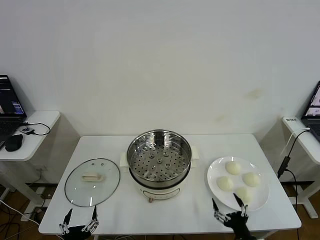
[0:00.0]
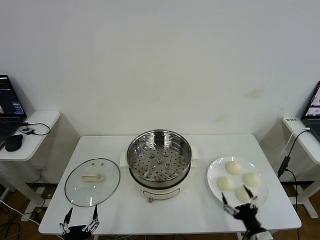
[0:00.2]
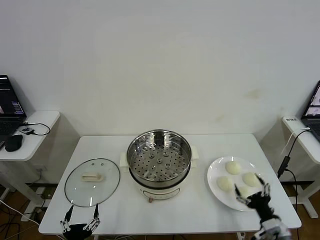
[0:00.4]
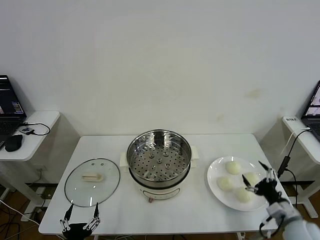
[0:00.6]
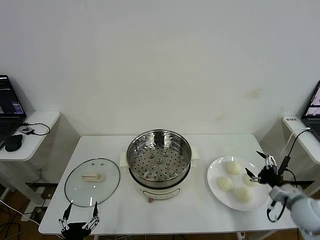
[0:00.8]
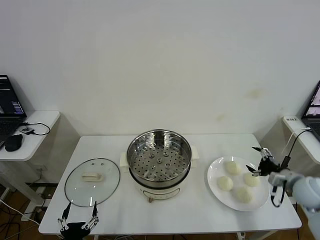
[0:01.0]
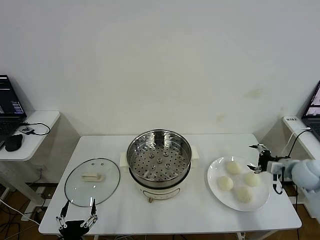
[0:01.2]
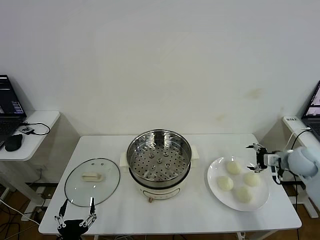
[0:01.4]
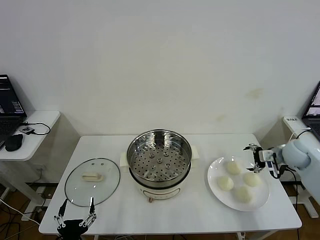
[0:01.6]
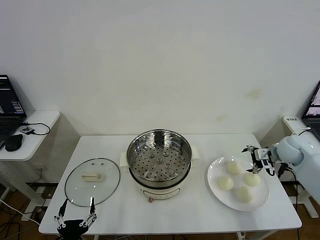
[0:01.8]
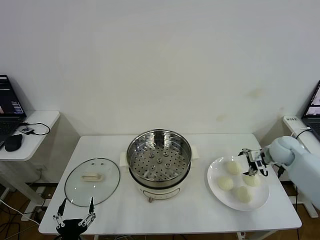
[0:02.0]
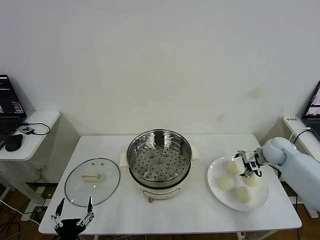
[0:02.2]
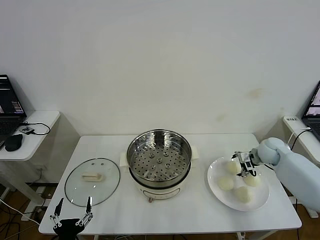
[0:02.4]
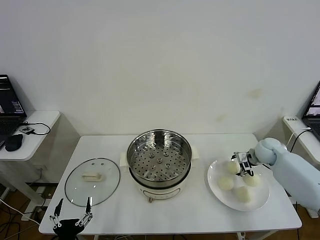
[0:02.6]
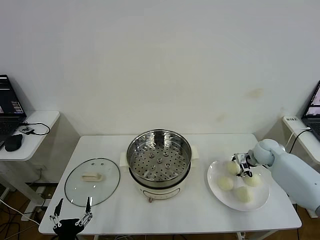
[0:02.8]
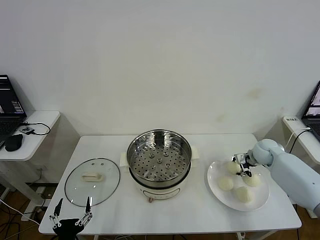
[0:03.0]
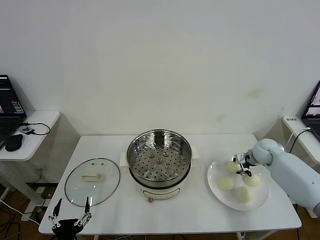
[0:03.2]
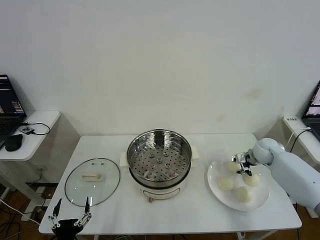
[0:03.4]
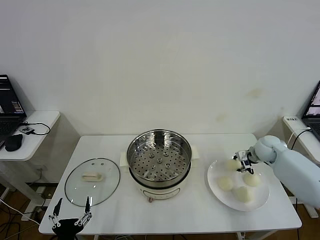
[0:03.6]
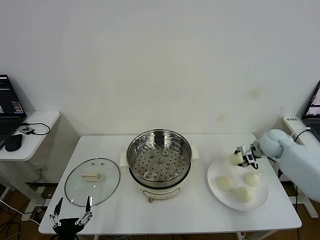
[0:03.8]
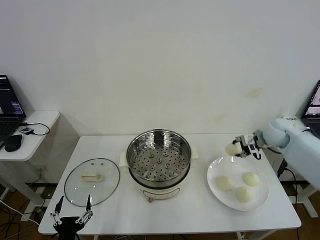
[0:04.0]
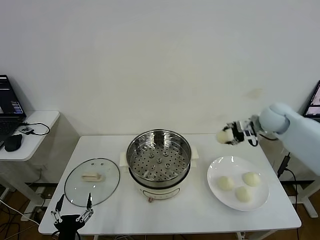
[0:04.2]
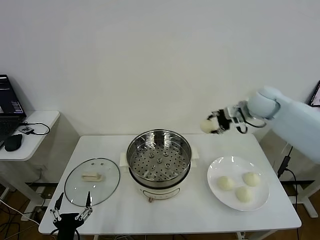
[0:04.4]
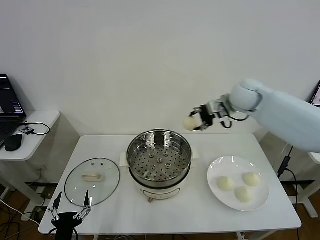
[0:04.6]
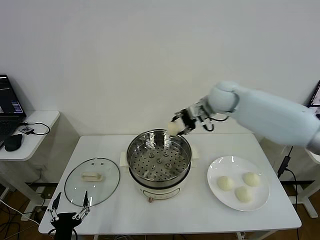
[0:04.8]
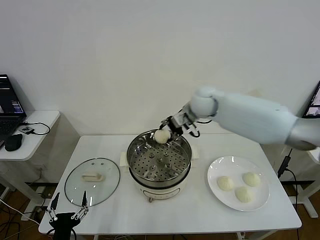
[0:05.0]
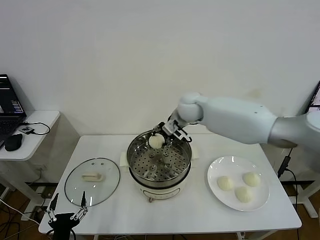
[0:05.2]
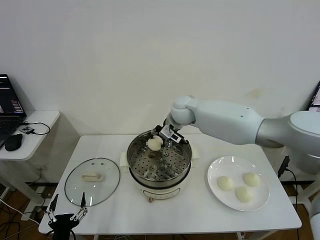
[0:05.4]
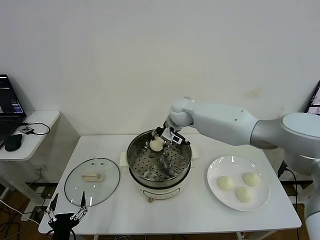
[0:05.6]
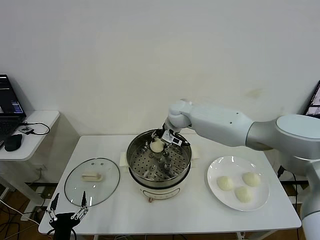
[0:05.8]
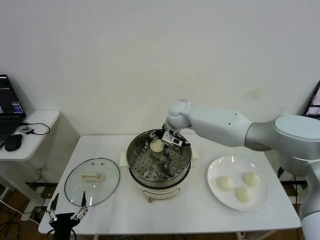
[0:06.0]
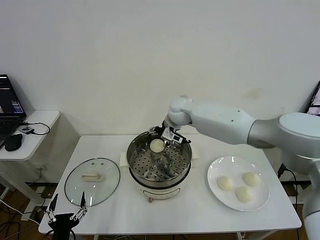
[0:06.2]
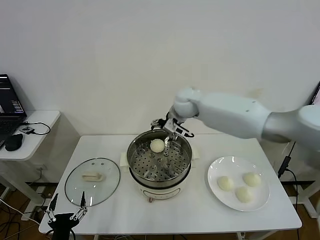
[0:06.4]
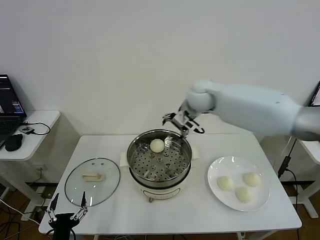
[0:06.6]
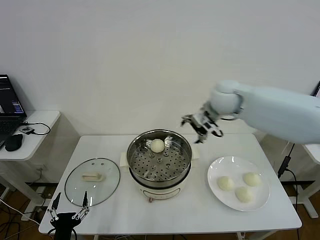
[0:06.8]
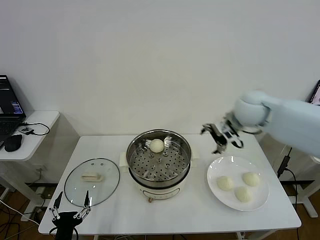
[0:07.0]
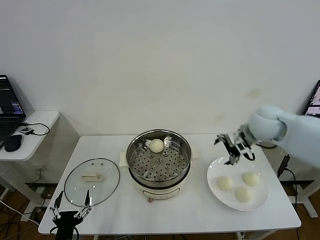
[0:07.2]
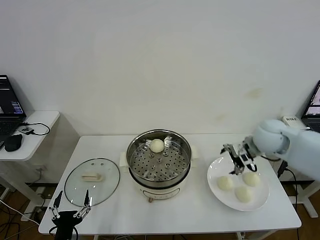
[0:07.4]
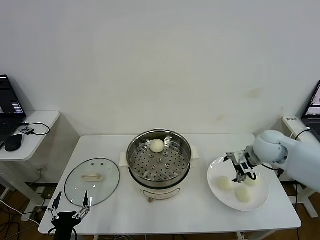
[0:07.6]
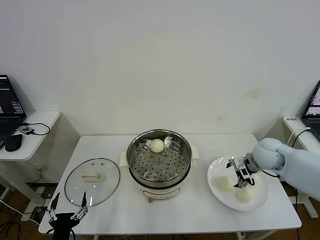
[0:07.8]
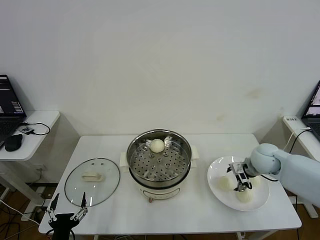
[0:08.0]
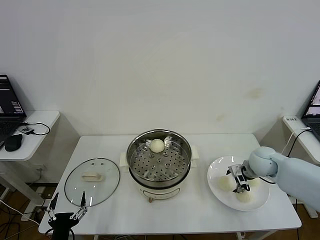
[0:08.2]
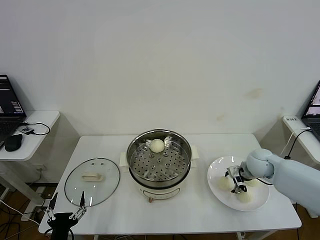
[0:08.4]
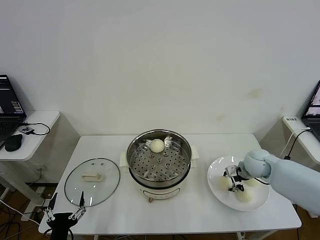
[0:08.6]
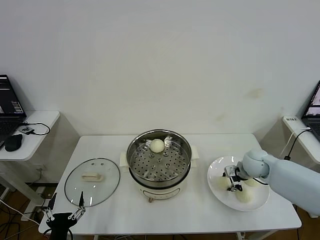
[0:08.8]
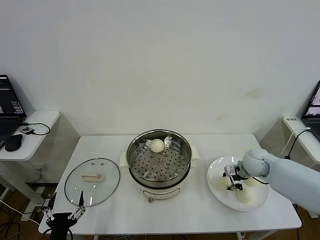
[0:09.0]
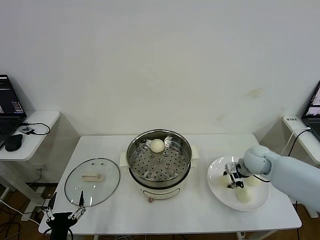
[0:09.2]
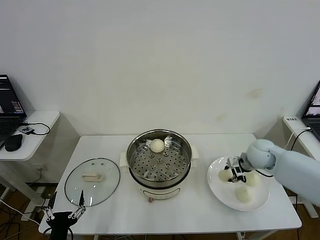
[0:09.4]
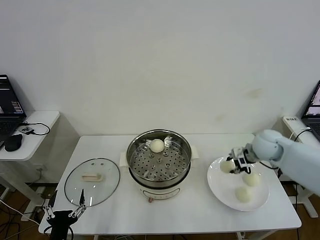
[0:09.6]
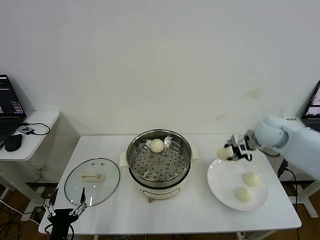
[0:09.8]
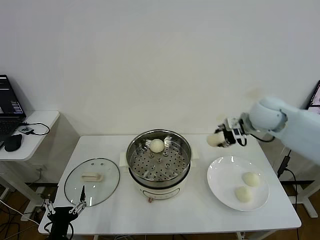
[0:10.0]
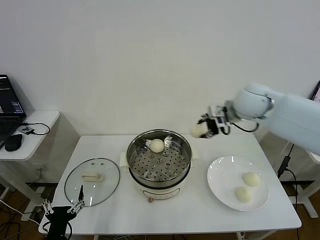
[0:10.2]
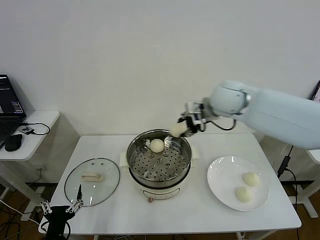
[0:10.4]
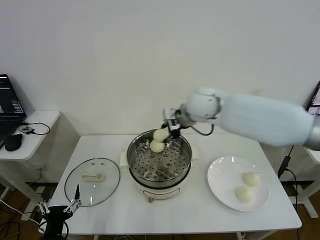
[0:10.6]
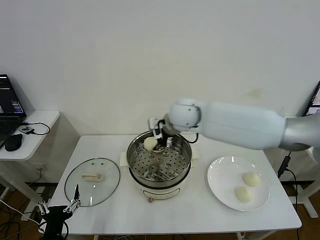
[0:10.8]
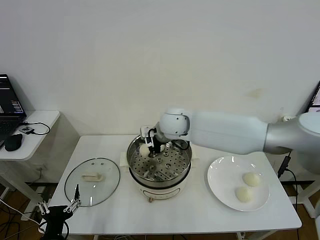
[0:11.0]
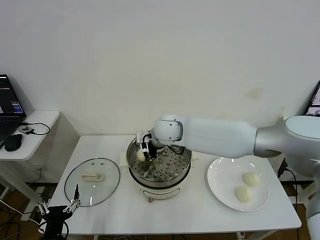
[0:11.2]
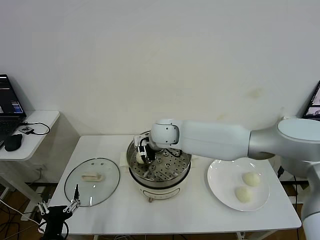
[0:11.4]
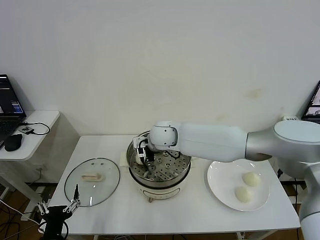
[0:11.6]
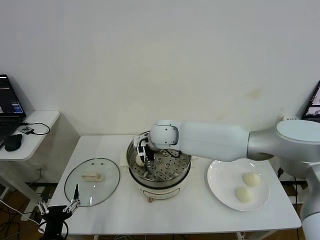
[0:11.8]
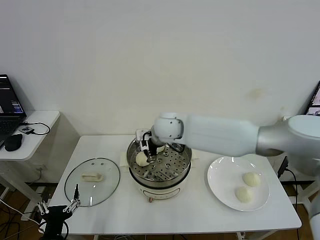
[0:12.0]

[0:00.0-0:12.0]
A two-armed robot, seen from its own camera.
Step, 0:00.0 to 0:03.2: Grasp the baozi in the plate with right gripper.
Step, 0:03.4 to 0:06.0: Place the baozi on the steamer with right gripper.
Step, 0:06.4 to 0:08.8: Grasp the baozi in the plate with right gripper.
Step, 0:09.0 to 0:11.8: Place the baozi on the steamer with right gripper.
0:01.6 to 0:03.0: The right gripper travels downward by approximately 5 cm, and closes its fingers.
0:03.0 to 0:04.4: The right gripper moves upward and to the left, roughly 25 cm.
0:04.4 to 0:06.0: The right gripper moves to the left and downward, roughly 25 cm, and opens.
0:06.0 to 0:07.6: The right gripper is displaced to the right and backward by some 30 cm.
0:07.6 to 0:09.0: The right gripper heads downward, covering roughly 10 cm, and closes up.
0:09.0 to 0:10.4: The right gripper is displaced upward and to the left by some 30 cm.
0:10.4 to 0:12.0: The right gripper goes some 15 cm to the left and downward, and opens.

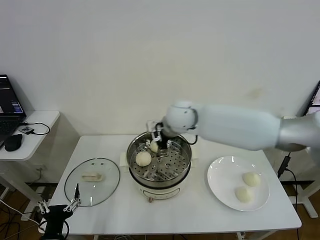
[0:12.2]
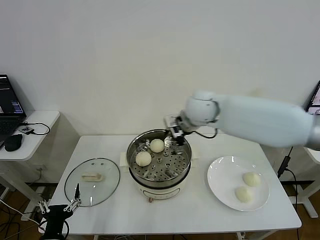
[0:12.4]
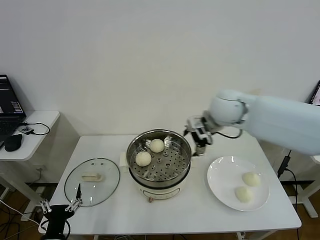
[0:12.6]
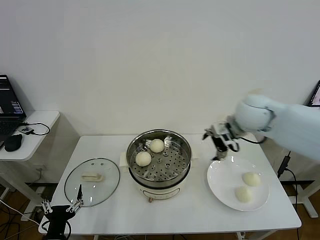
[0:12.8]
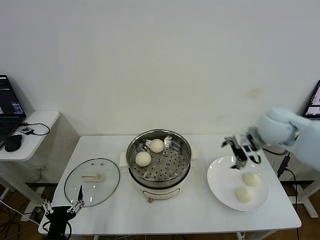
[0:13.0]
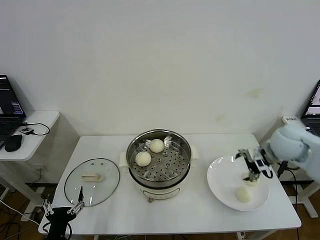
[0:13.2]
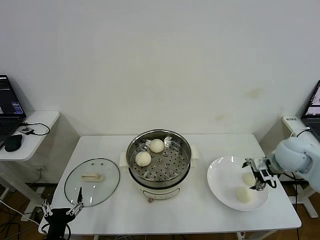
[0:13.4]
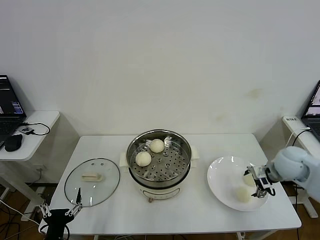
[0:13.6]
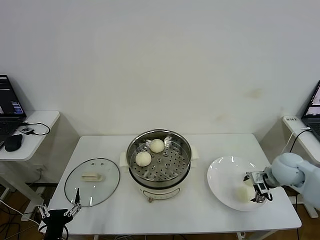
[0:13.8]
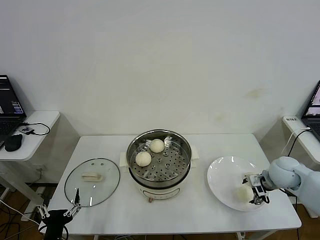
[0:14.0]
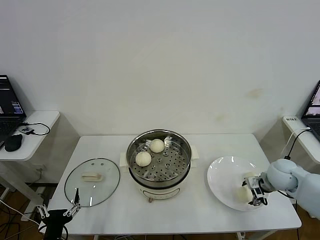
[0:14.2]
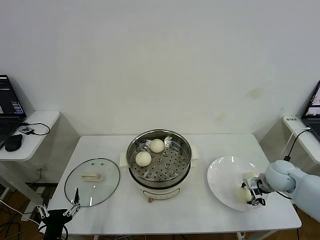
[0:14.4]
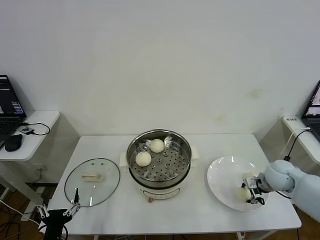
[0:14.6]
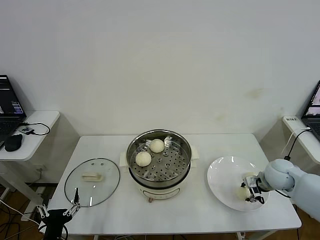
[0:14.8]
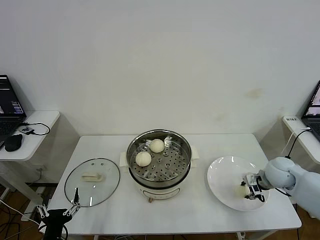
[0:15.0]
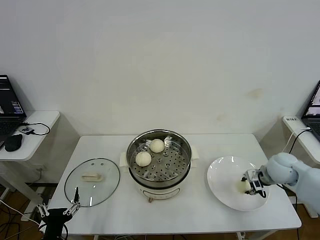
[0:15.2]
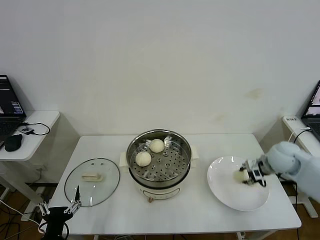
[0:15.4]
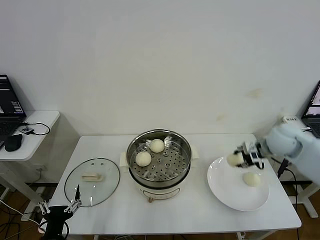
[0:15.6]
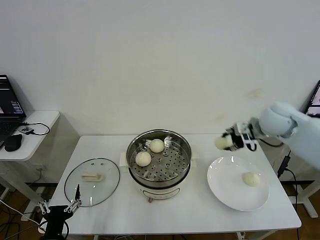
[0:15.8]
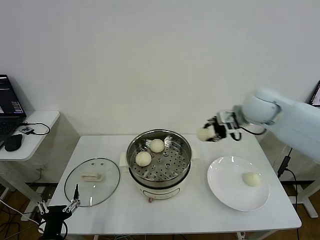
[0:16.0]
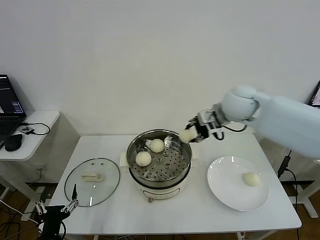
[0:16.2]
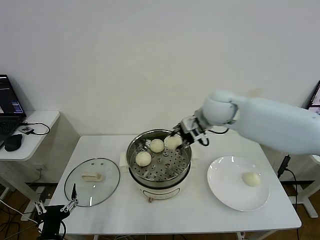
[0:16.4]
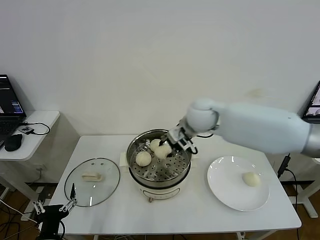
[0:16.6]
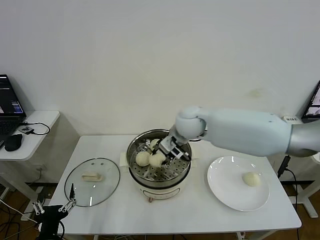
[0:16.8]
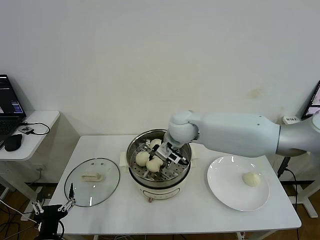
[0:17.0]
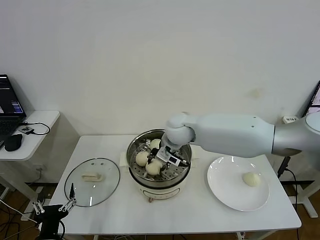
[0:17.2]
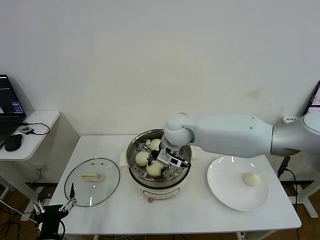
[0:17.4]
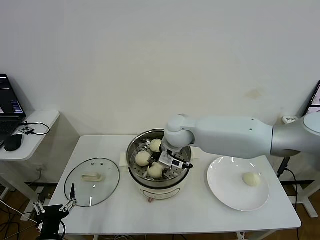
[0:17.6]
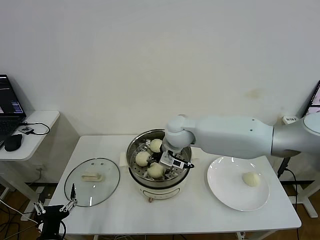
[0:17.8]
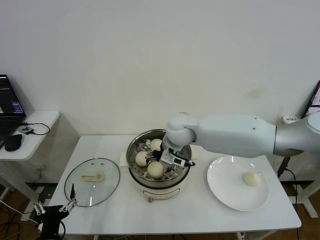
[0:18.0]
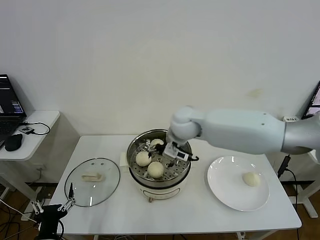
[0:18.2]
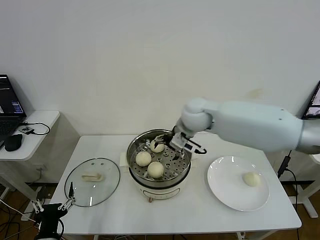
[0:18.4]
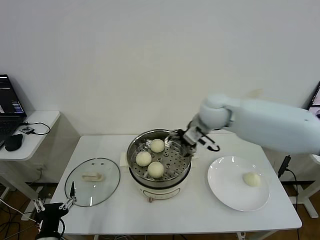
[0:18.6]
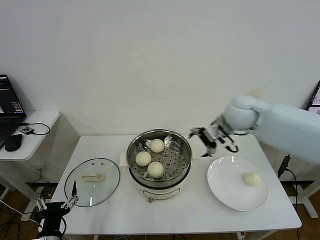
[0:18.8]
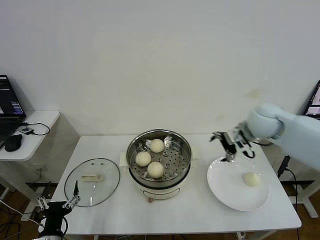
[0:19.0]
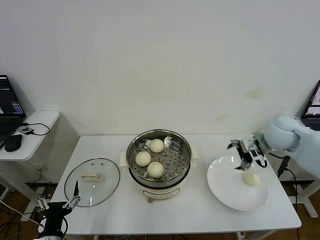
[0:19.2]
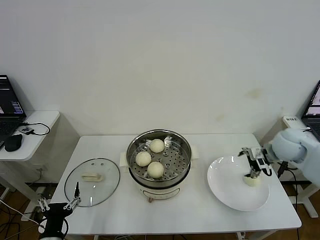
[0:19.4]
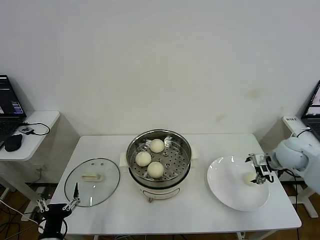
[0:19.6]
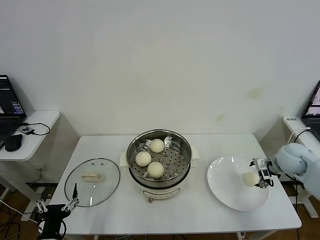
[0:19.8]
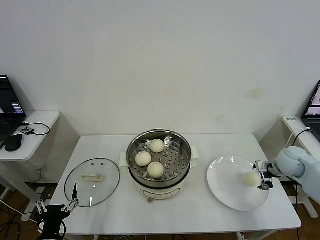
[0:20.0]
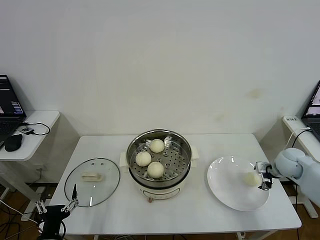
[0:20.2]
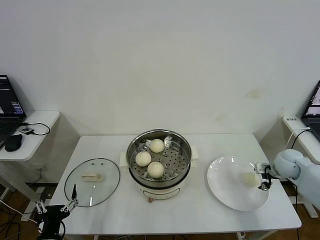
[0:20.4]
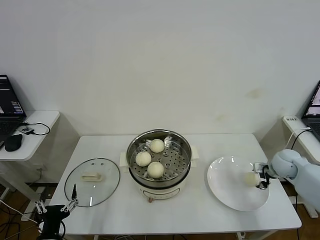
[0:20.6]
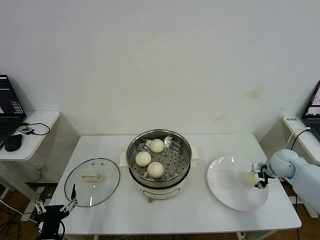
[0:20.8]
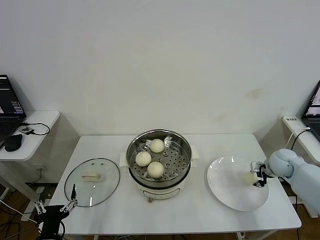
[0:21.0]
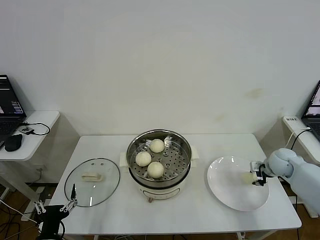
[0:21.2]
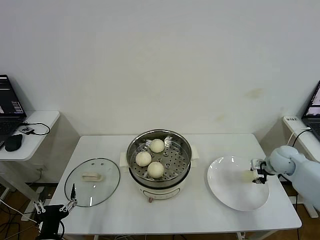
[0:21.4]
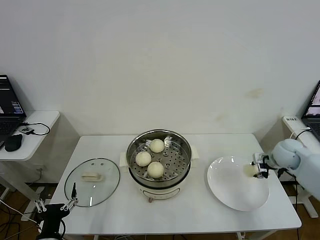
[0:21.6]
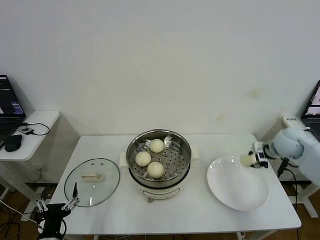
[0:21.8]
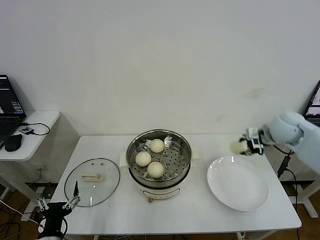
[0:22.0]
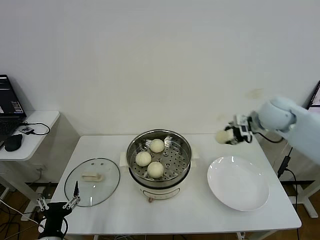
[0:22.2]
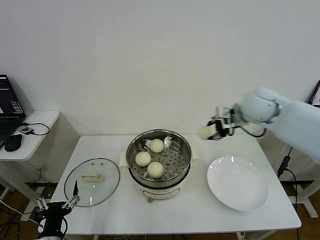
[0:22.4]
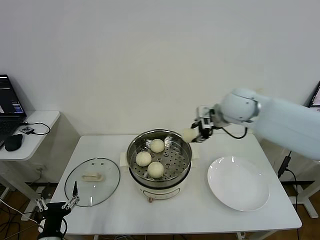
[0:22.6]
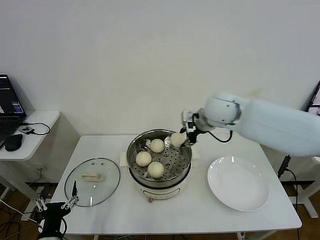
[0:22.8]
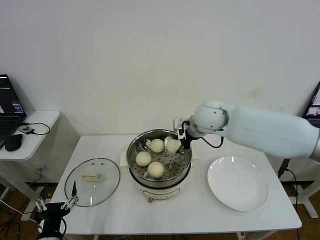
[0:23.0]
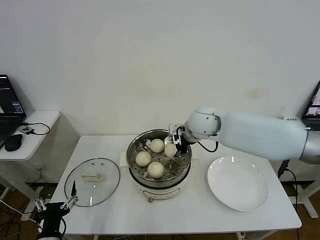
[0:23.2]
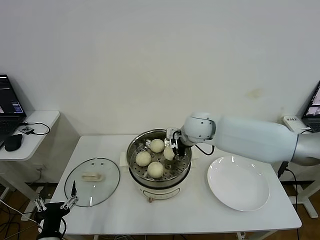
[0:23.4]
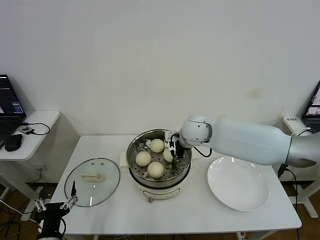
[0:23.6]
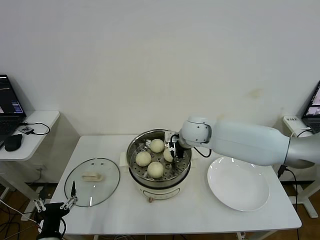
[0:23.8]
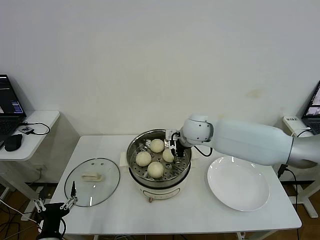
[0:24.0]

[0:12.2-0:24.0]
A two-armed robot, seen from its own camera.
Step, 0:12.2 to 0:14.8: Grasp the baozi in the plate with right gripper.
Step, 0:15.0 to 0:18.0: Place the baozi on the steamer with right gripper.
Step, 0:18.2 to 0:21.2: Grasp the baozi in the plate with right gripper.
0:12.2 to 0:13.6: The right gripper shifts about 35 cm to the right and downward.
0:13.6 to 0:15.2: The right gripper closes up.
0:15.2 to 0:16.6: The right gripper heads to the left and upward, covering about 30 cm.
0:16.6 to 0:18.2: The right gripper opens up.
0:18.2 to 0:19.6: The right gripper heads to the right, covering about 35 cm.
0:19.6 to 0:21.0: The right gripper heads downward, covering about 10 cm, and closes up.
0:21.0 to 0:22.6: The right gripper shifts roughly 35 cm to the left and upward.
0:22.6 to 0:24.0: The right gripper travels downward and to the left by some 15 cm, and opens up.
